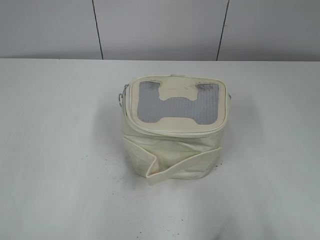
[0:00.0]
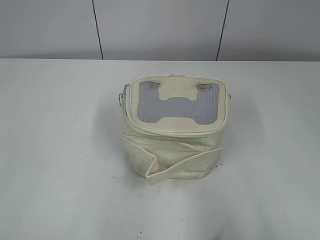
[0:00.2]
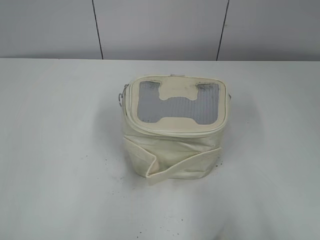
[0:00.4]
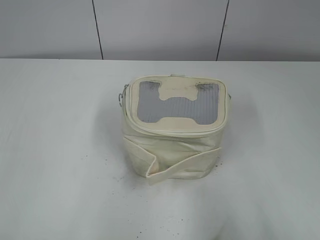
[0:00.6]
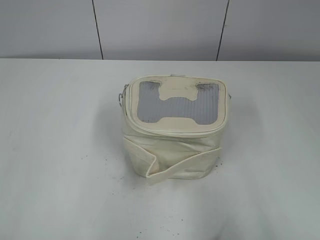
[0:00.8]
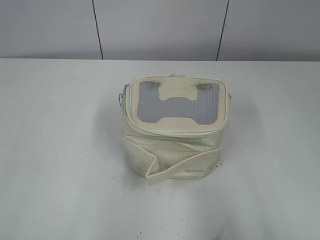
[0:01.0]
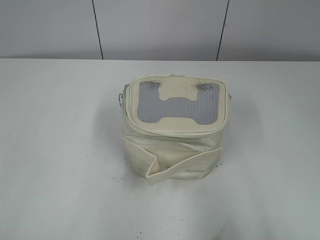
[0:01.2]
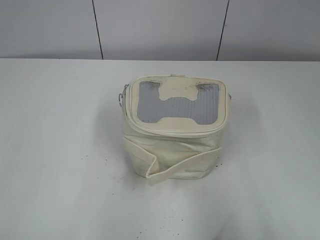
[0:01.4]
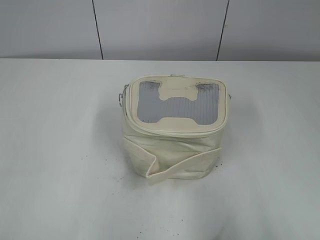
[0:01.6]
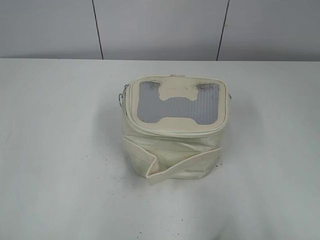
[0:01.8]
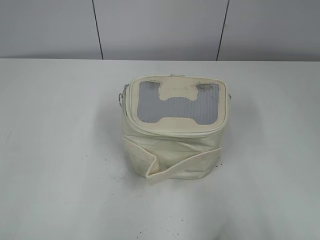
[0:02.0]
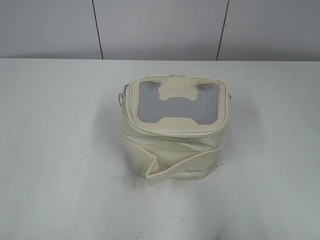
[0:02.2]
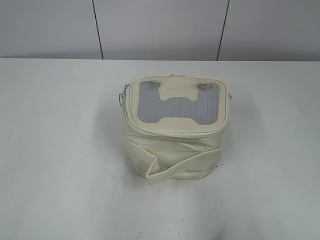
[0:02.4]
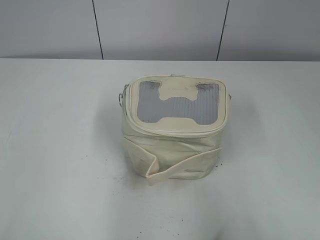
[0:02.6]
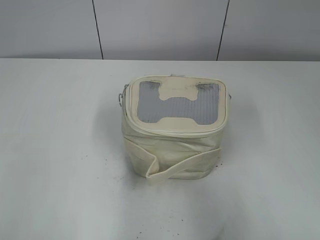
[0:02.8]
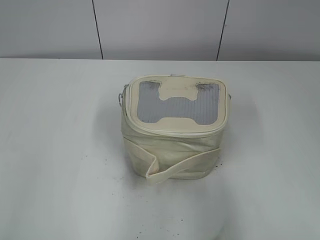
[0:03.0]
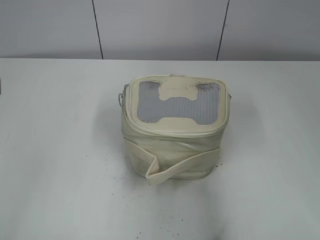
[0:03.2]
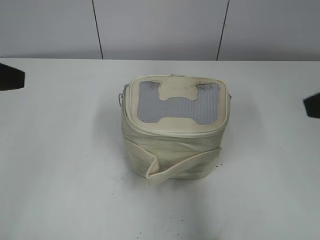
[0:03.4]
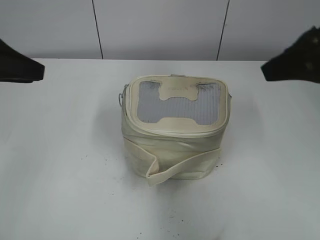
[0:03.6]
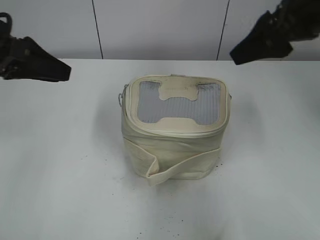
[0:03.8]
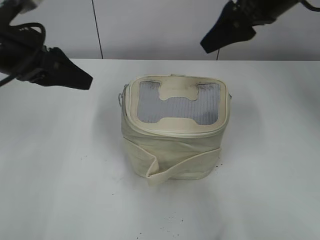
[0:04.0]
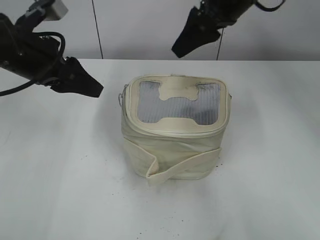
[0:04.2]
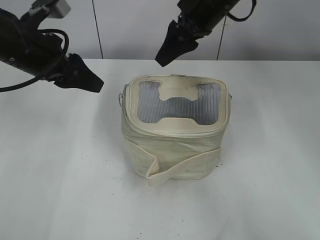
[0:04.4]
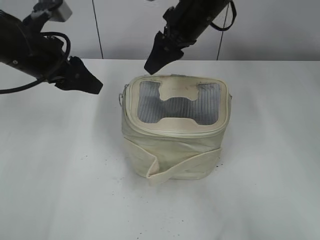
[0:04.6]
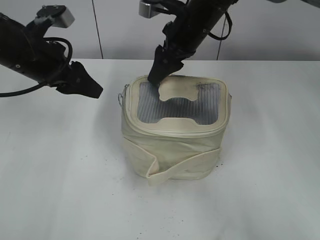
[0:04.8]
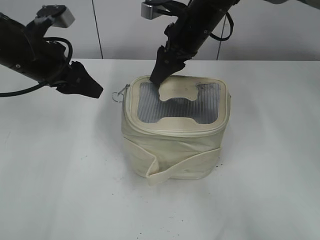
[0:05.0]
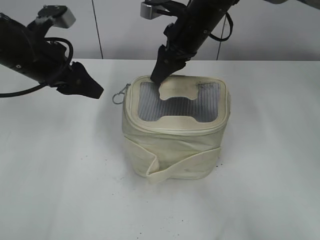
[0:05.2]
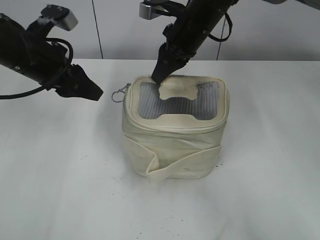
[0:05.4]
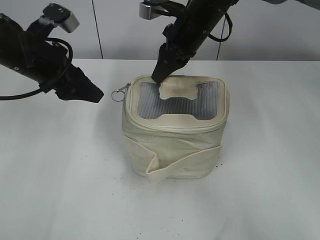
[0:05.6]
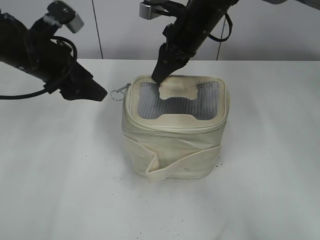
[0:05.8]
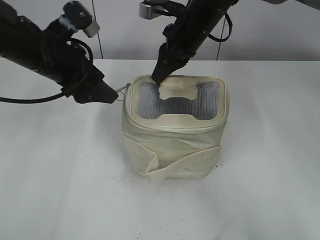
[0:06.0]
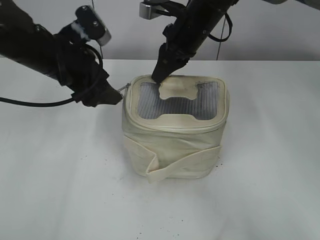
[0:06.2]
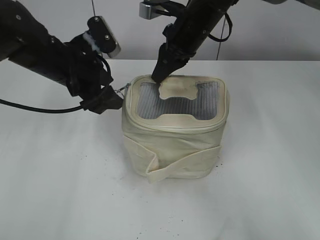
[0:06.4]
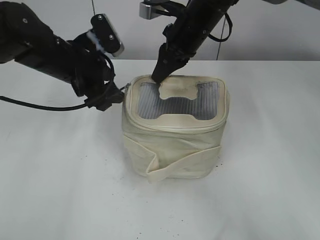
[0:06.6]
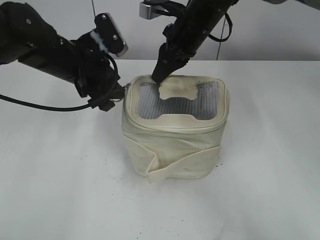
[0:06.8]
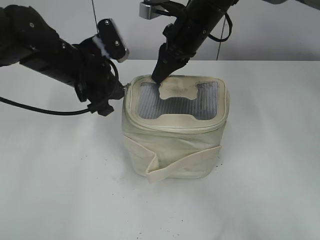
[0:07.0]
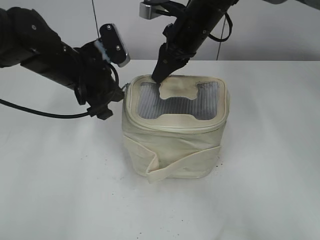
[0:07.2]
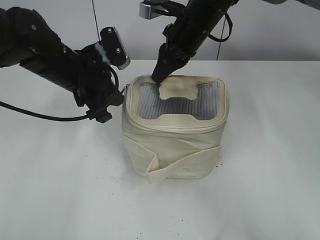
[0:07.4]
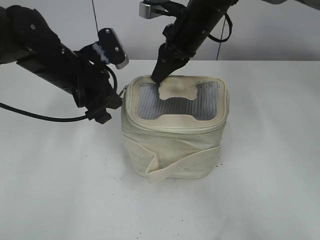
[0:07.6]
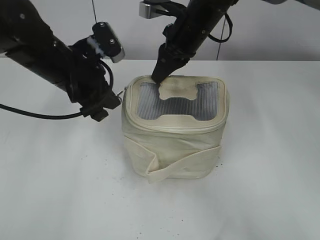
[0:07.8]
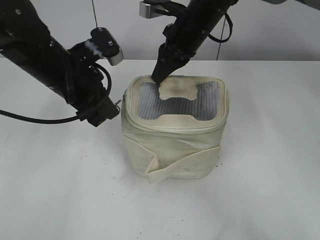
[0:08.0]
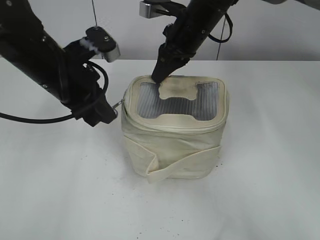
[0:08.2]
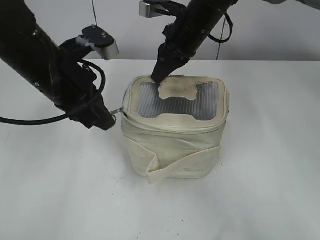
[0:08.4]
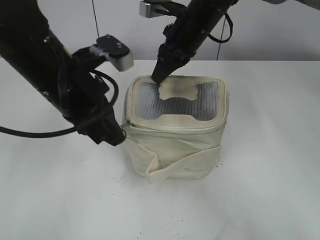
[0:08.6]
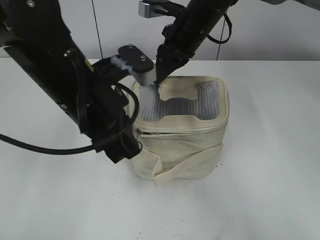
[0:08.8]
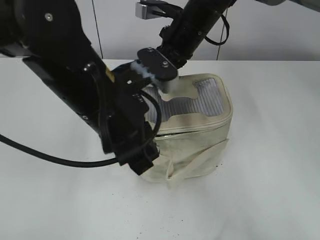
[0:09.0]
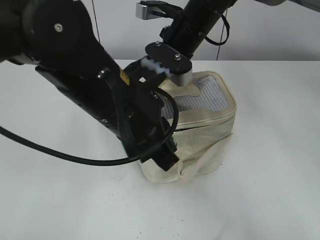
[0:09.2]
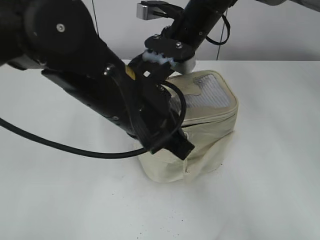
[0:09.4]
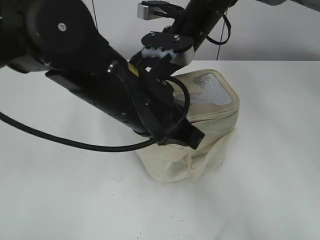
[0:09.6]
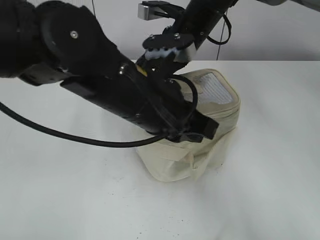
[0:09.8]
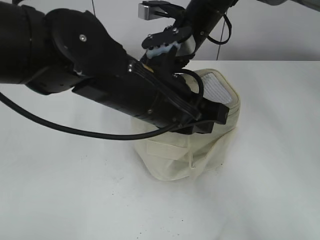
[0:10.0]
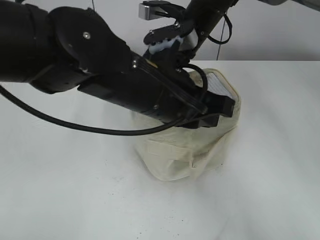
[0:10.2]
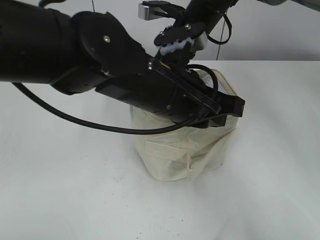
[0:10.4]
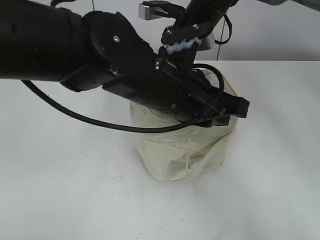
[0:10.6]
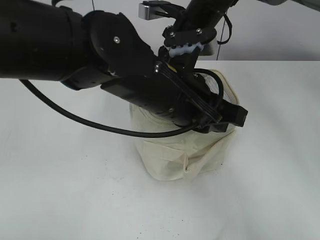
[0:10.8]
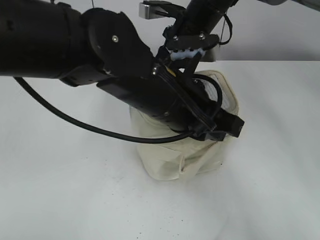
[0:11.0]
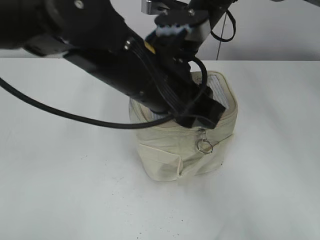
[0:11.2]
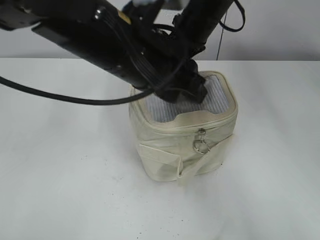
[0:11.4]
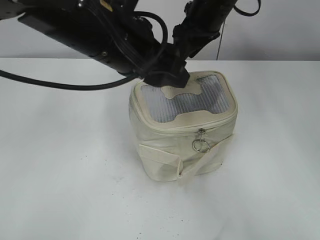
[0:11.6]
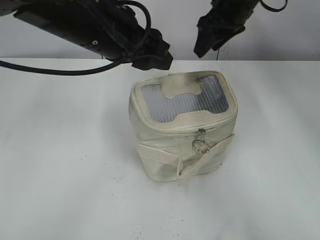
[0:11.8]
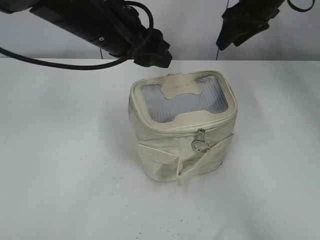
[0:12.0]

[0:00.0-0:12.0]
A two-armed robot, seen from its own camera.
Step, 0.0 to 11.0 s: Zip up the bag with your left hand.
Step, 11.2 to 11.6 s: Hold the bag with your right hand.
1.6 to 3.0 s: The right gripper travels forward by roughly 5 cm, while the left gripper travels forward by approximately 10 cm.
3.0 to 4.4 s: The left gripper moves forward and to the right, about 25 cm. Meanwhile the right gripper goes approximately 40 cm forward and to the left.
4.4 to 6.0 s: The right gripper is displaced downward by some 5 cm, and closes its fingers.
6.0 to 7.6 s: The left gripper changes place by approximately 5 cm, and closes up.
7.6 to 9.0 s: The left gripper goes about 15 cm backward and to the right.
9.0 to 10.4 s: The left gripper shifts about 5 cm to the right.
10.4 to 12.0 s: The right gripper goes approximately 15 cm to the right and upward, and opens up, while the left gripper heads forward and to the left, covering approximately 10 cm, and opens its fingers.

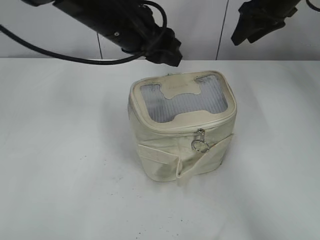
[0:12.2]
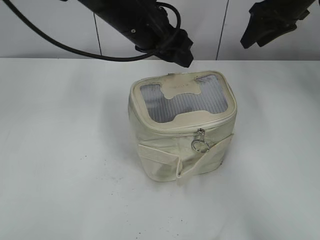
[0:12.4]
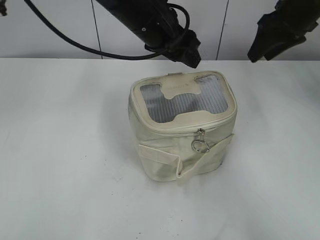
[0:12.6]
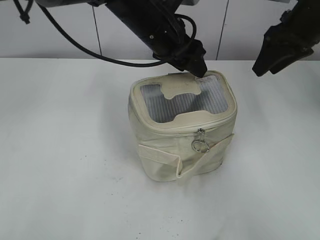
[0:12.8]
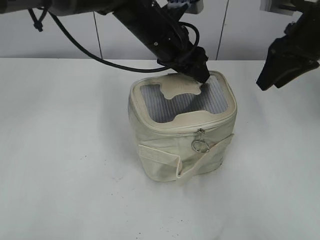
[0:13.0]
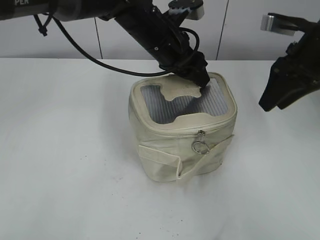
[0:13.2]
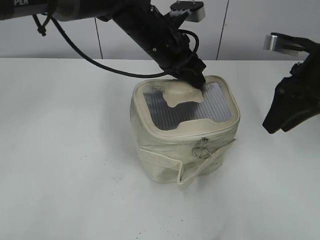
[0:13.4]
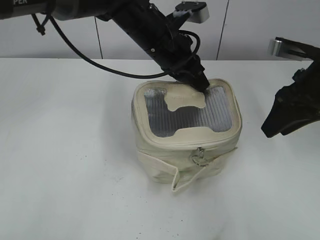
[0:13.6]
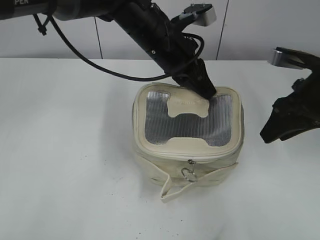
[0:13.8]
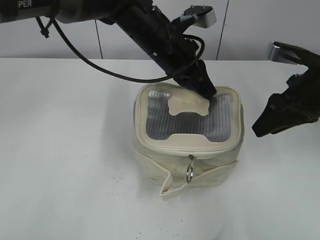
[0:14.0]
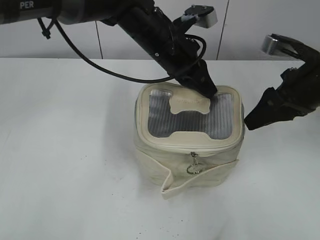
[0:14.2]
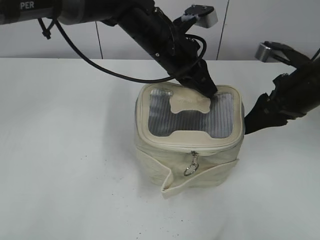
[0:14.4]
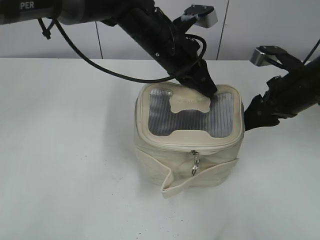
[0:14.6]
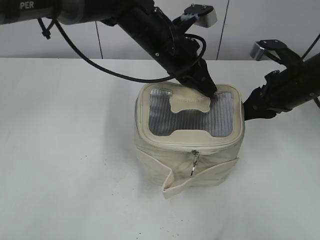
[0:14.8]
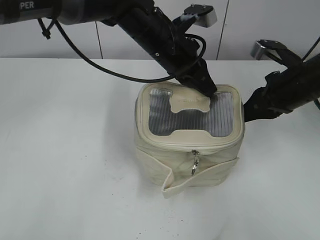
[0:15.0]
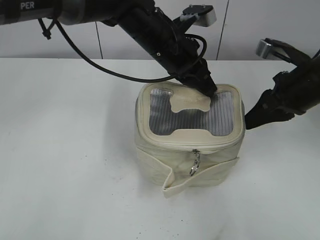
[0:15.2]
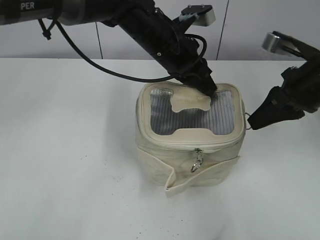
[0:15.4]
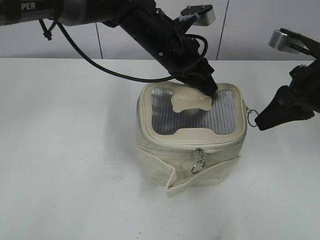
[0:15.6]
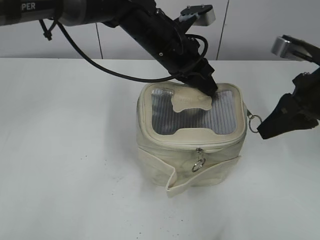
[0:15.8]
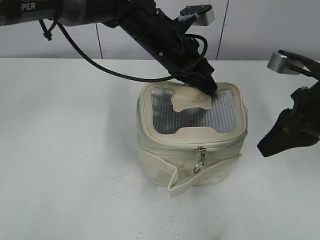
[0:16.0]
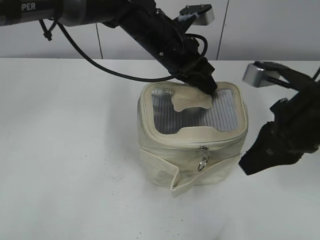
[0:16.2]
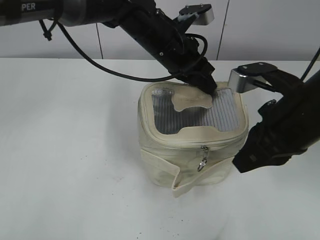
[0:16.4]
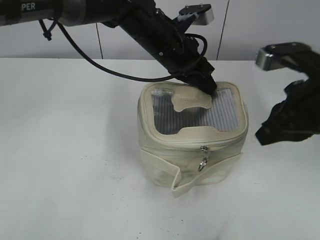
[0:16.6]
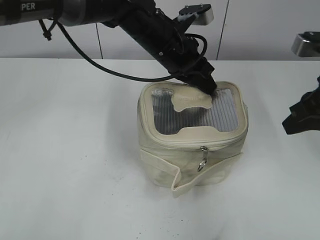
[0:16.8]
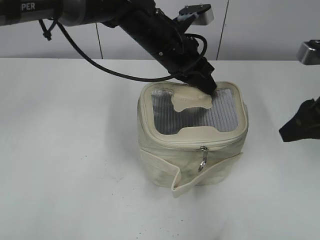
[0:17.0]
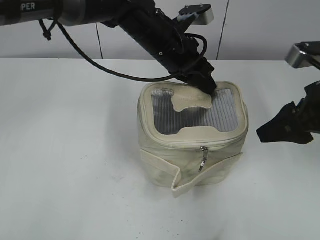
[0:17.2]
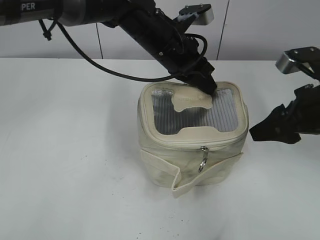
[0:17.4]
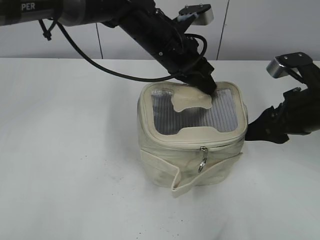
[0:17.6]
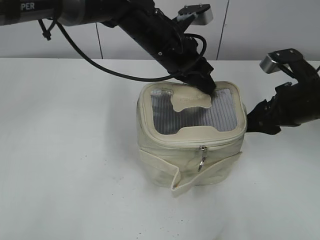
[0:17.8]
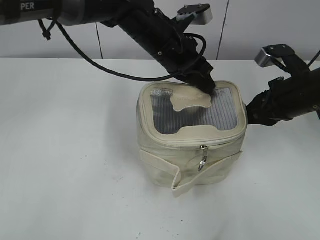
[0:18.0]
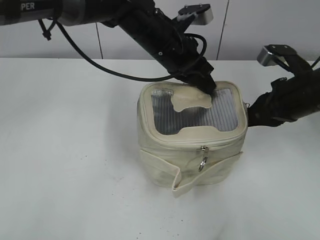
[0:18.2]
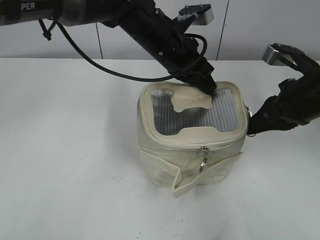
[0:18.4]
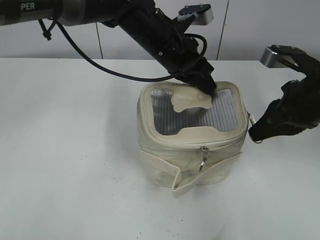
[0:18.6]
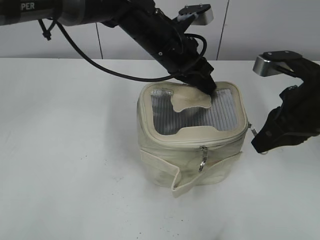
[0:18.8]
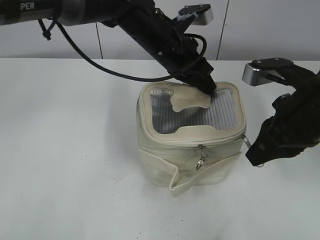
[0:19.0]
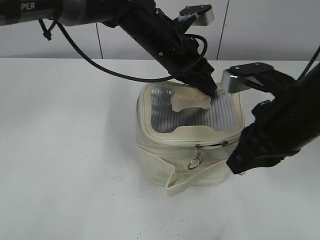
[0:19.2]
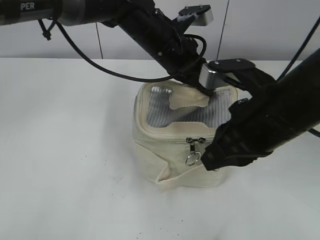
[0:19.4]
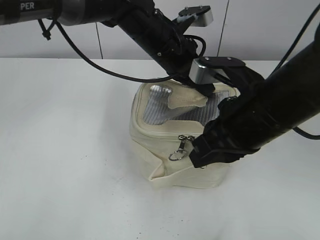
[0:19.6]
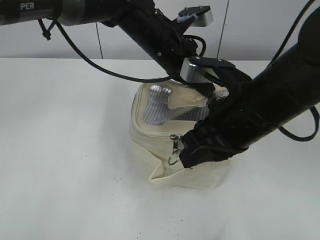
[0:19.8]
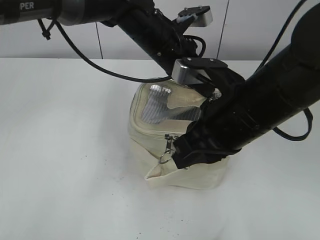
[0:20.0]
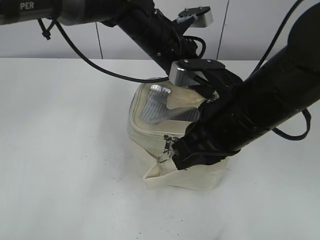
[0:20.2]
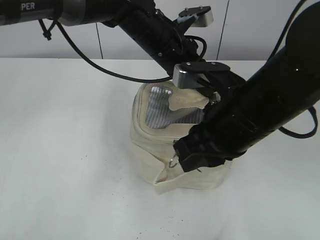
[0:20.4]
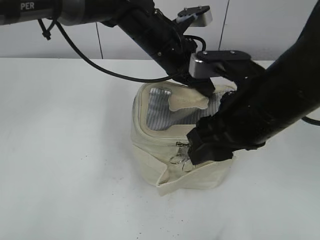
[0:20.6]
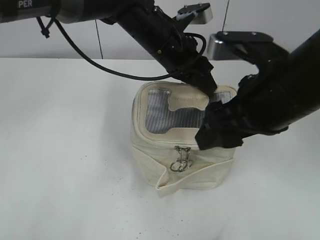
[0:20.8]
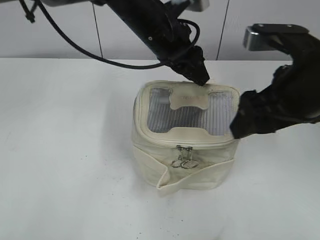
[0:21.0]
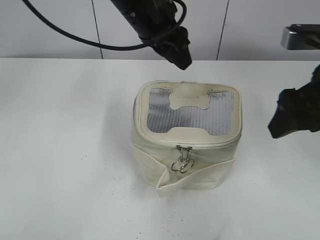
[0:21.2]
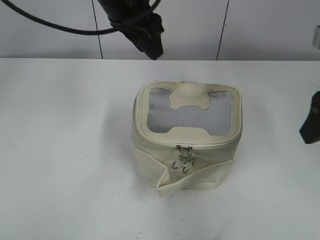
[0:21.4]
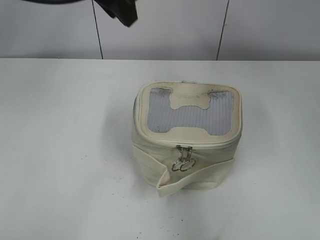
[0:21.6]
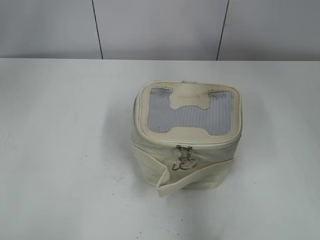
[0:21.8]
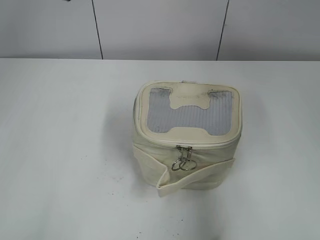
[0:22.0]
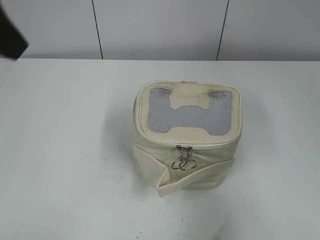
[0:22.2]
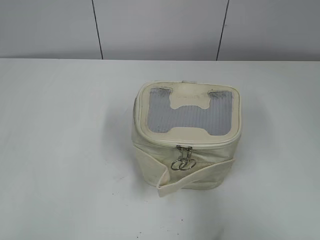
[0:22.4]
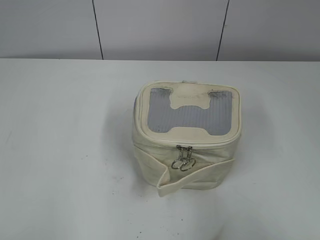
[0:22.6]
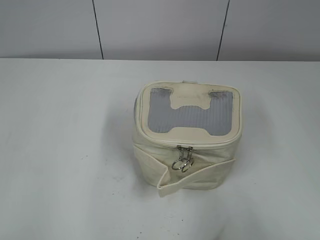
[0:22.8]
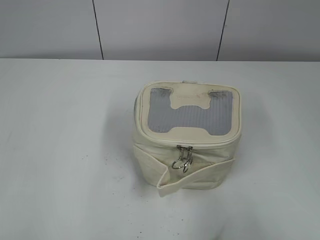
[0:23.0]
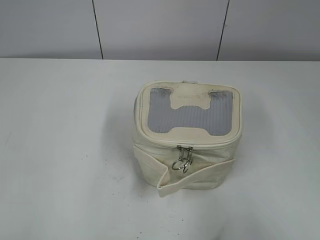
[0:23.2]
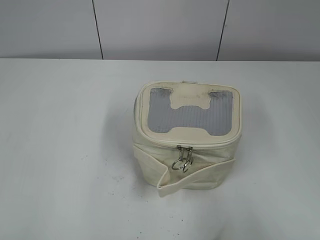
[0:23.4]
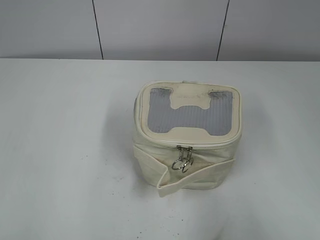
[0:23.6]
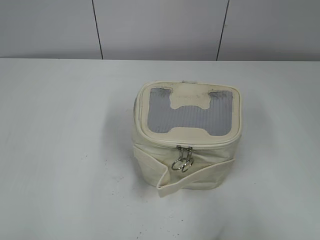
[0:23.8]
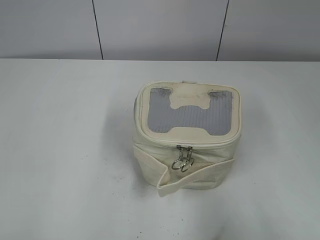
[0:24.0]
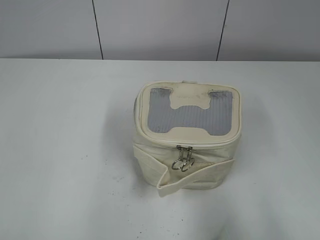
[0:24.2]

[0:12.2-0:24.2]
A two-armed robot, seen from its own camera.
Step, 12.2 to 20.4 s: Zip up the bag with your right hand.
Step, 20.6 to 21.0 s: Hold the bag with your left hand.
12.2 to 13.8 s: The right gripper shifts about 15 cm backward. The left gripper travels to the right by roughly 5 cm, and closes its fingers.
13.8 to 15.2 s: The right gripper closes up.
15.2 to 16.6 s: The right gripper heads backward, covering approximately 5 cm.
16.6 to 18.2 s: The right gripper goes approximately 10 cm forward and downward, and opens and closes again.
18.2 to 19.8 s: The right gripper moves to the left and backward, roughly 15 cm.
19.8 to 21.2 s: The left gripper is displaced upward by some 5 cm, and opens its fingers. Meanwhile the right gripper is displaced to the right by approximately 10 cm, and opens up.
21.2 to 22.6 s: The right gripper moves backward, approximately 25 cm. The left gripper is displaced backward and to the left by roughly 40 cm.
